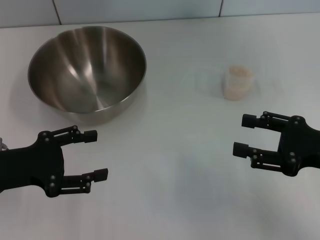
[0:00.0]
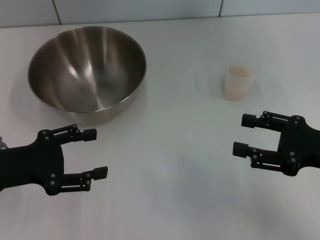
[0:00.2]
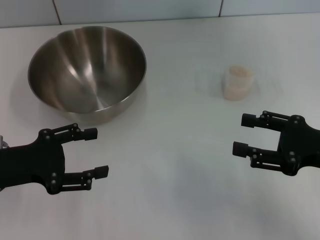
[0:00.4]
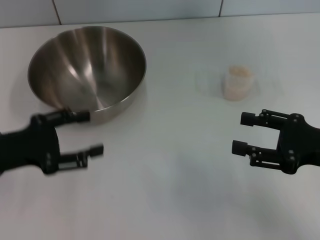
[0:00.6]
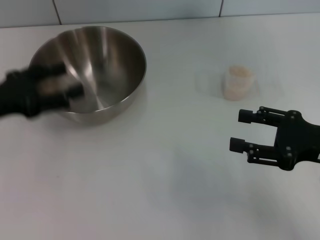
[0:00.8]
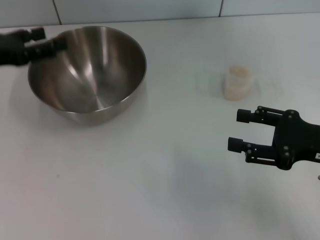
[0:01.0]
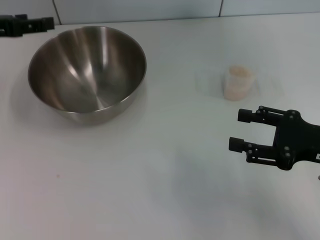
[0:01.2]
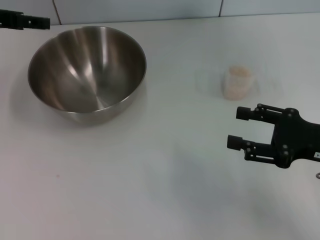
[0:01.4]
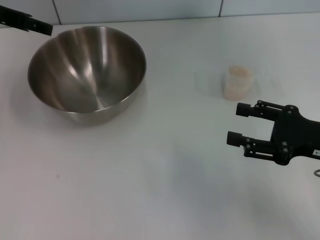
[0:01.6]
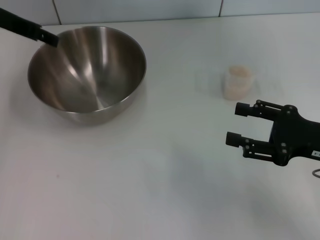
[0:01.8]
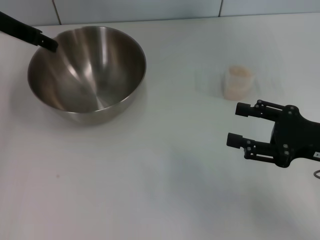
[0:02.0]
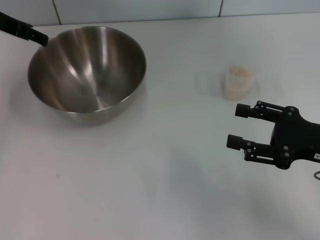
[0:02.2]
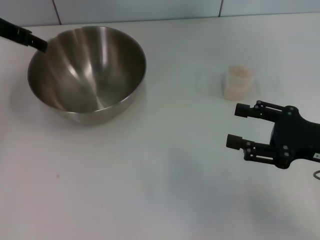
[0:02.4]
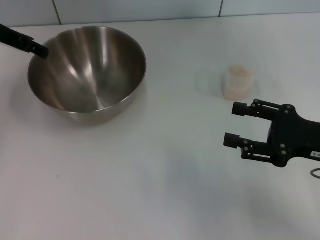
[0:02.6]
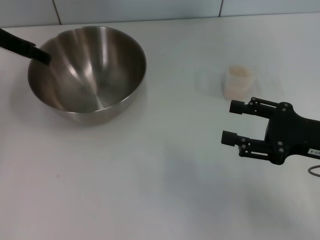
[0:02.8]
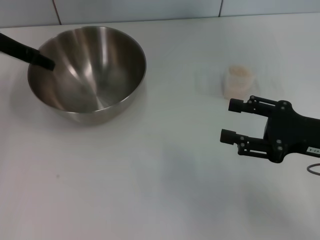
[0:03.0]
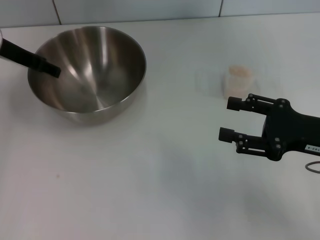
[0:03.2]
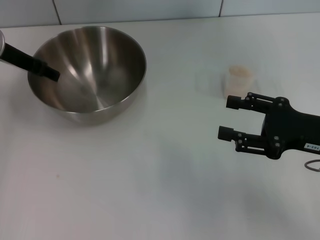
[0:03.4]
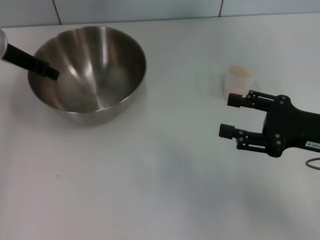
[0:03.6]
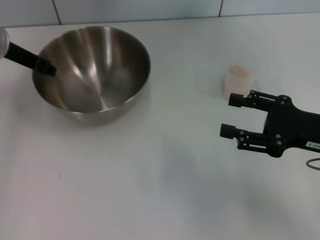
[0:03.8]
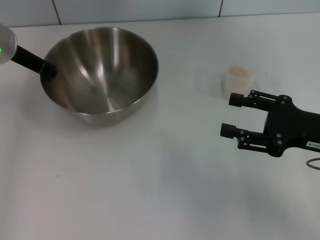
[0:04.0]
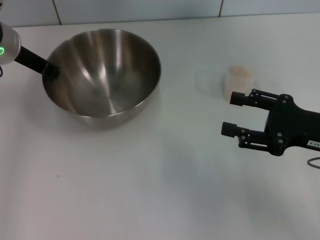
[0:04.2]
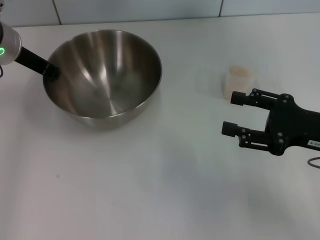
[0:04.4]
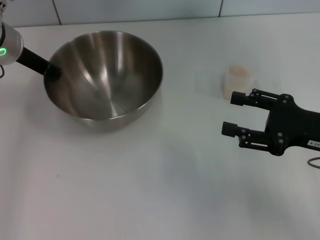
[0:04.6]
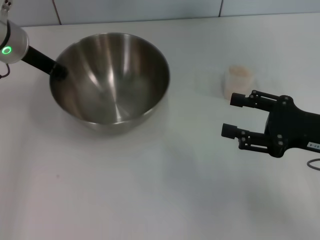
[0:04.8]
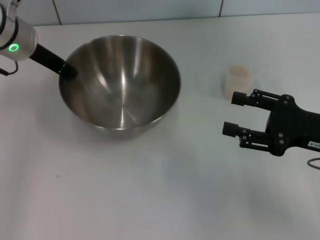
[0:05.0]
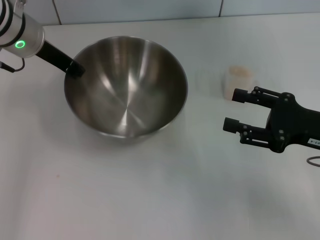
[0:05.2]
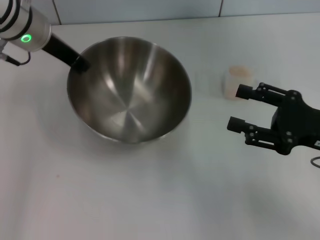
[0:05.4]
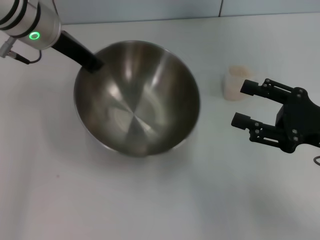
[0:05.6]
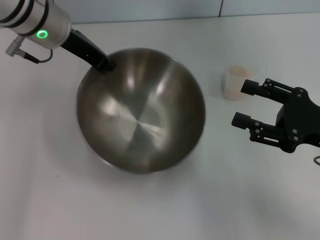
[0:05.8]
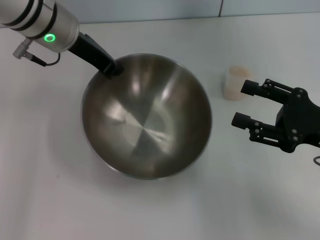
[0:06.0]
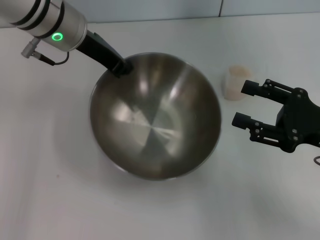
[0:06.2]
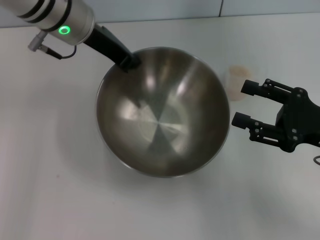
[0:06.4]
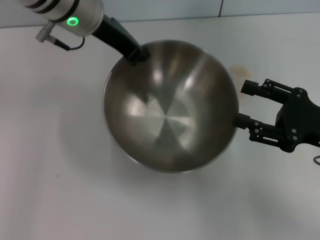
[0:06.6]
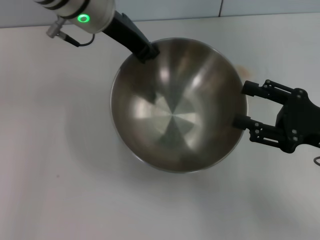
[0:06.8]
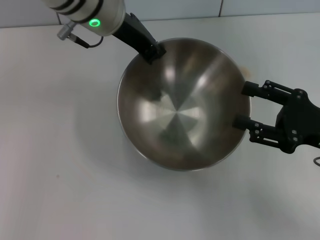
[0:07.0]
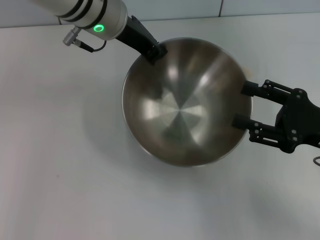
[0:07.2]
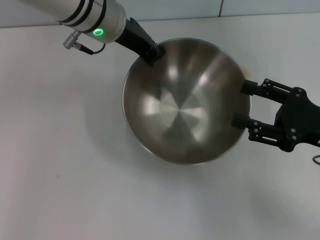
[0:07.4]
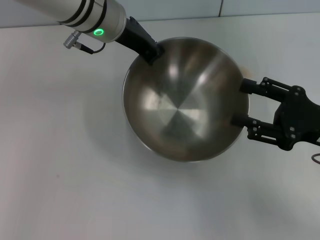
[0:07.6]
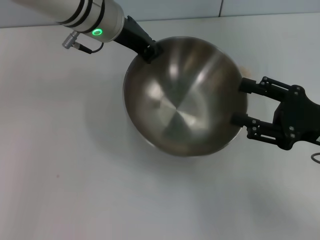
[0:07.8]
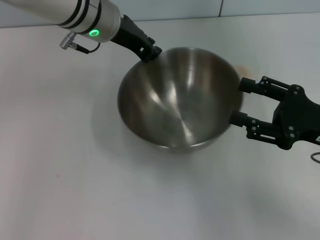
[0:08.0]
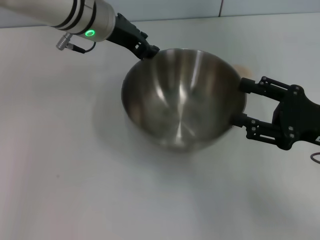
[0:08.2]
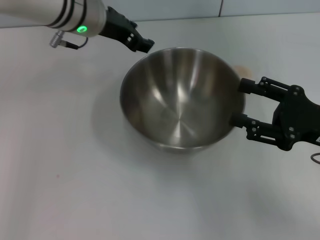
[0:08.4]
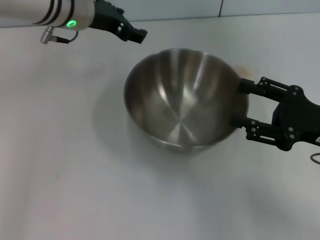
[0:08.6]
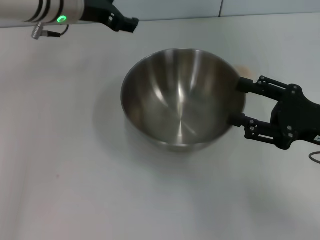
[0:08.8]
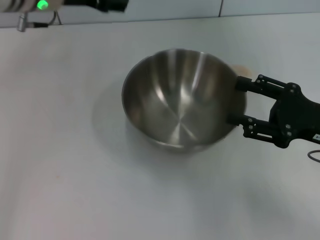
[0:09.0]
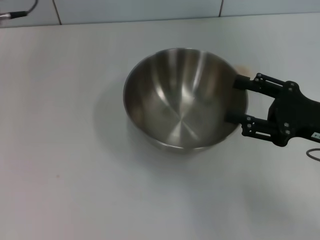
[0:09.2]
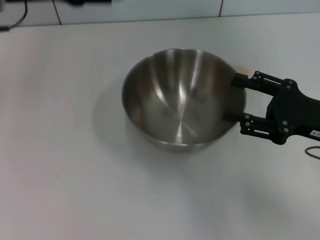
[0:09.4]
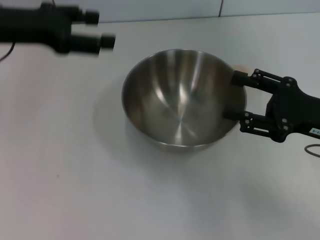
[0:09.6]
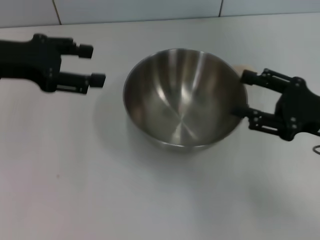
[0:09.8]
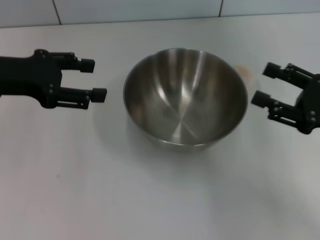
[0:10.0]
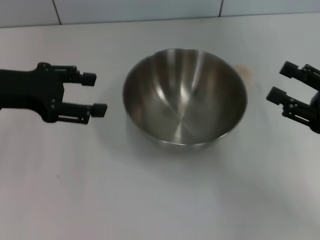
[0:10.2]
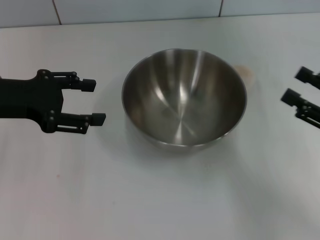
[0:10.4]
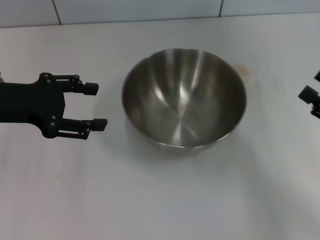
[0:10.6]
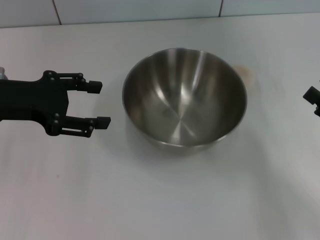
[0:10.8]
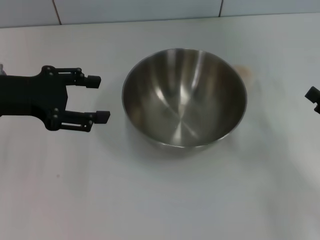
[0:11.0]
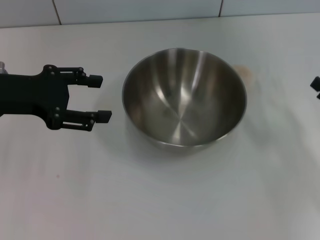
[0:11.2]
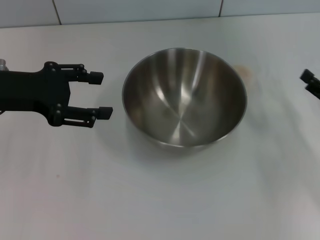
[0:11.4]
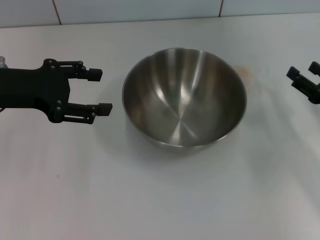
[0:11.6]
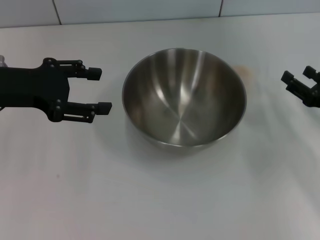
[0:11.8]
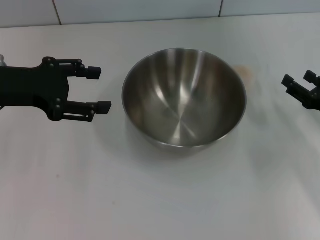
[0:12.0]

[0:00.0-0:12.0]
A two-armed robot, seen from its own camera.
Task of the whole recording: Place the bowl in the middle of the table with one hand and pour the rice from the grain cup into it with the other hand.
Step, 0:00.0 to 0:05.0: Pick up the bowl with the left gripper.
Step, 0:05.2 to 0:09.0: Place the bowl in the center of view with the left gripper.
0:00.0 to 0:01.6: The left gripper moves forward and upward, about 20 cm.
0:01.6 to 0:03.0: The left gripper goes roughly 5 cm downward.
0:03.0 to 0:04.4: The left gripper closes up.
0:04.4 to 0:06.0: The left gripper goes approximately 10 cm to the right.
0:06.0 to 0:07.6: The left gripper is displaced to the right by approximately 5 cm.
0:07.6 to 0:09.0: The left gripper travels to the left by some 10 cm, and opens.
0:09.0 to 0:10.4: The left gripper heads backward and to the left, covering some 15 cm, while the right gripper heads to the right, covering roughly 5 cm.
0:10.4 to 0:12.0: The right gripper heads downward and forward, covering about 10 cm.

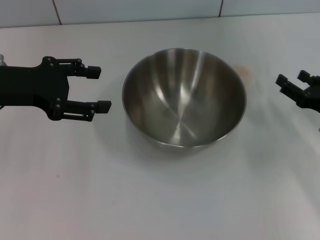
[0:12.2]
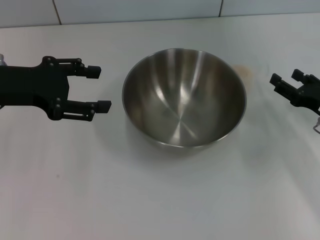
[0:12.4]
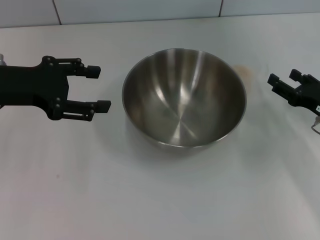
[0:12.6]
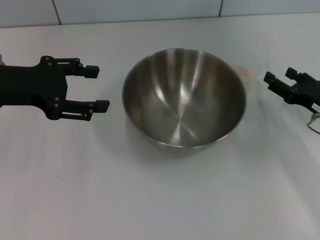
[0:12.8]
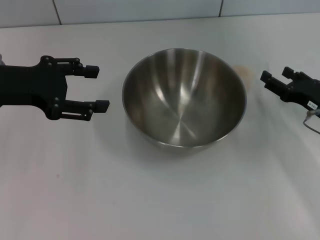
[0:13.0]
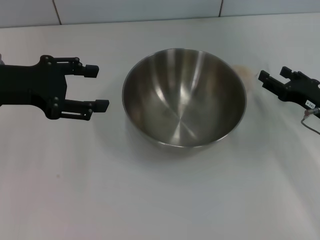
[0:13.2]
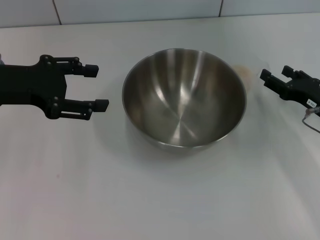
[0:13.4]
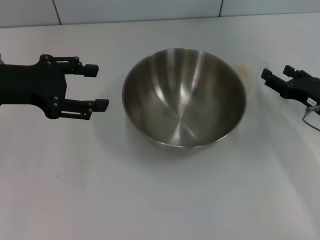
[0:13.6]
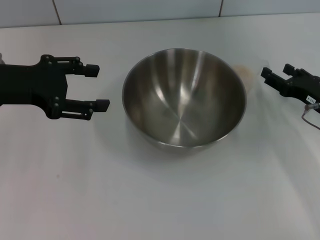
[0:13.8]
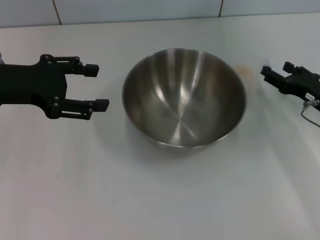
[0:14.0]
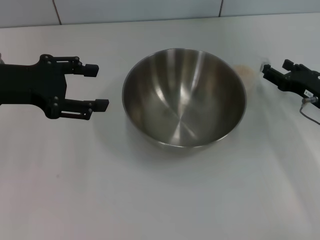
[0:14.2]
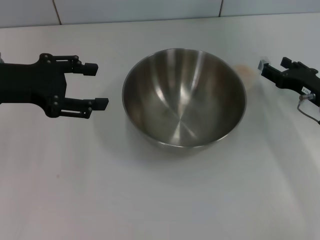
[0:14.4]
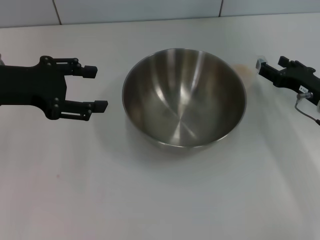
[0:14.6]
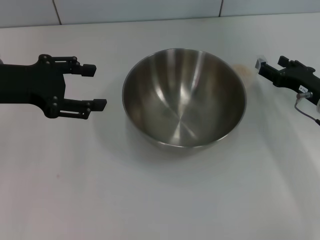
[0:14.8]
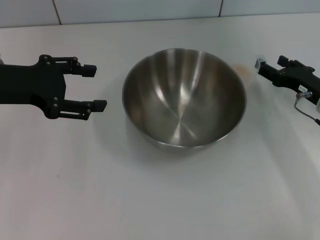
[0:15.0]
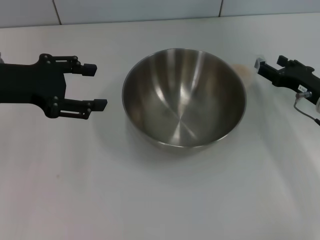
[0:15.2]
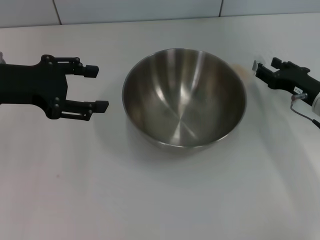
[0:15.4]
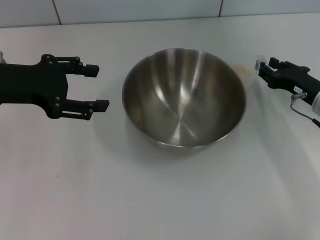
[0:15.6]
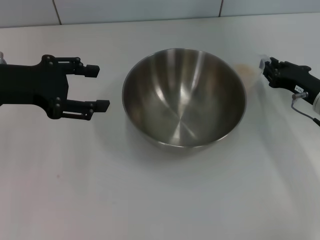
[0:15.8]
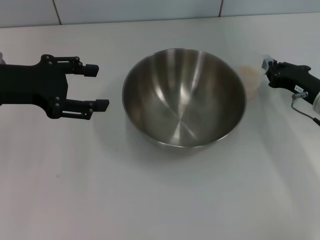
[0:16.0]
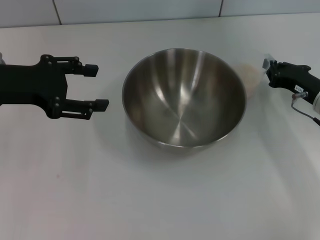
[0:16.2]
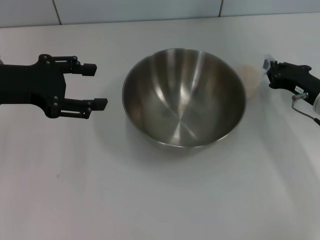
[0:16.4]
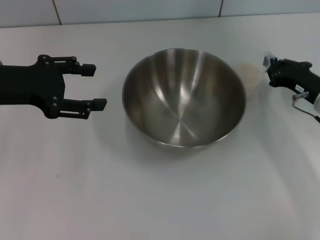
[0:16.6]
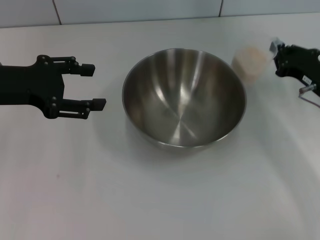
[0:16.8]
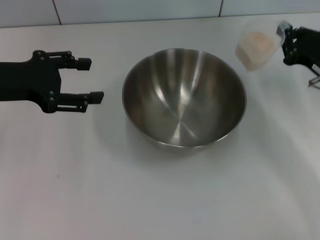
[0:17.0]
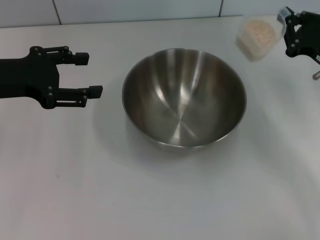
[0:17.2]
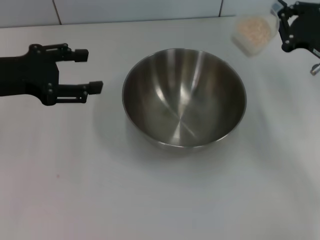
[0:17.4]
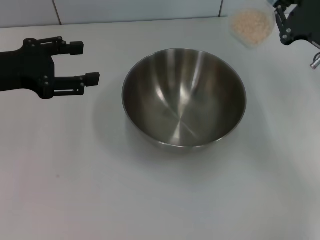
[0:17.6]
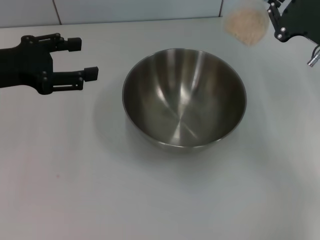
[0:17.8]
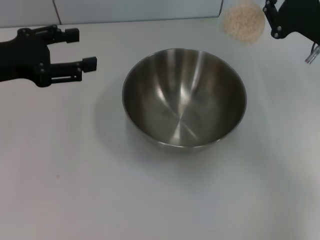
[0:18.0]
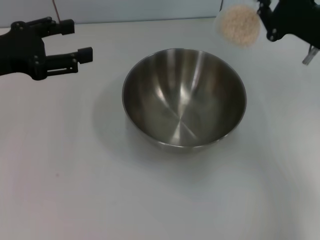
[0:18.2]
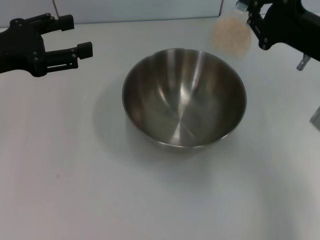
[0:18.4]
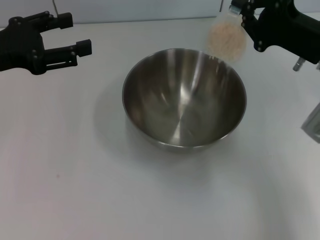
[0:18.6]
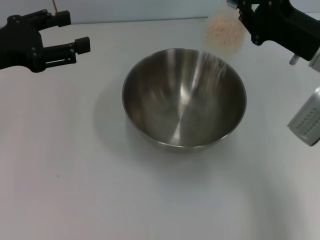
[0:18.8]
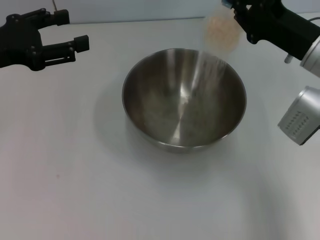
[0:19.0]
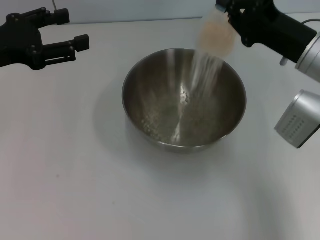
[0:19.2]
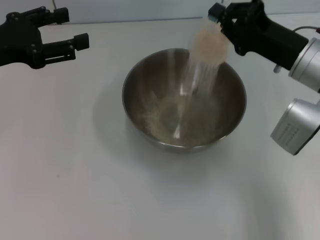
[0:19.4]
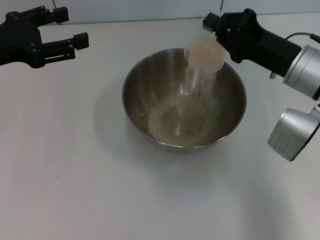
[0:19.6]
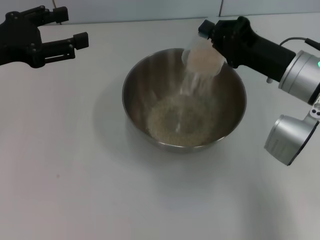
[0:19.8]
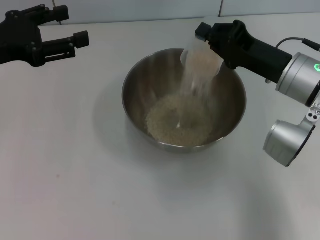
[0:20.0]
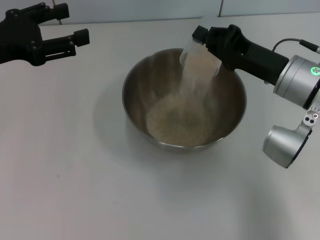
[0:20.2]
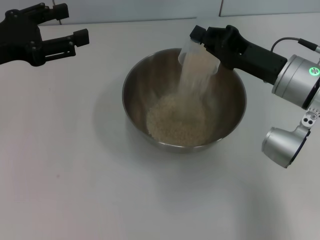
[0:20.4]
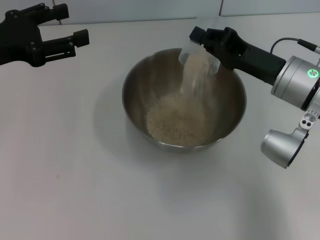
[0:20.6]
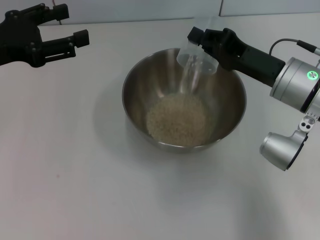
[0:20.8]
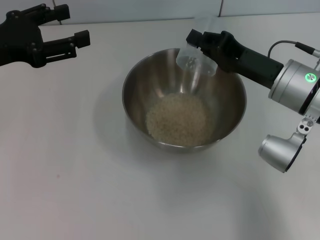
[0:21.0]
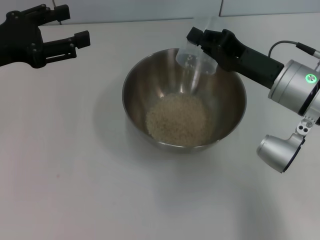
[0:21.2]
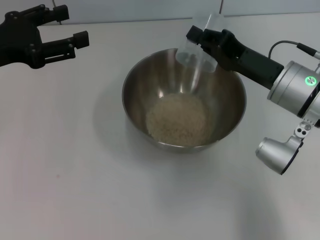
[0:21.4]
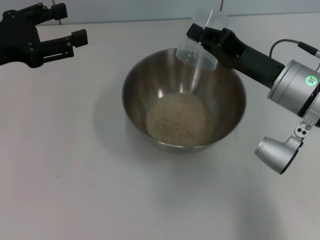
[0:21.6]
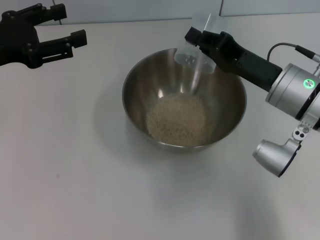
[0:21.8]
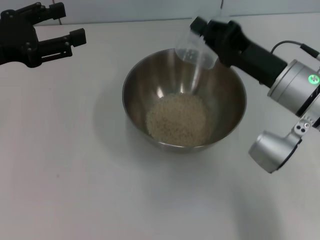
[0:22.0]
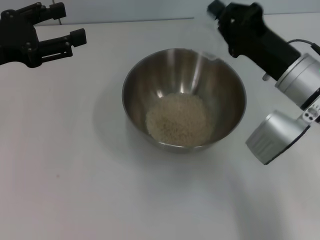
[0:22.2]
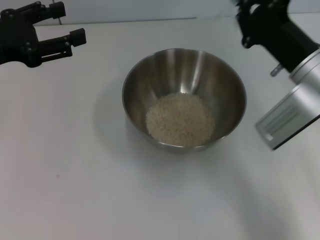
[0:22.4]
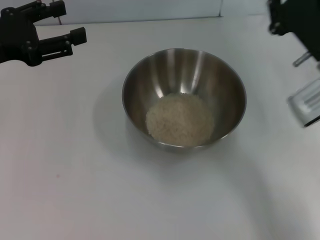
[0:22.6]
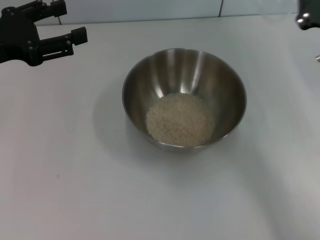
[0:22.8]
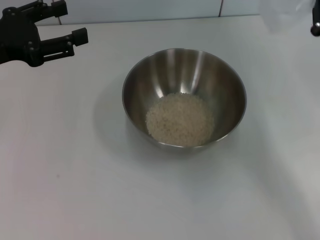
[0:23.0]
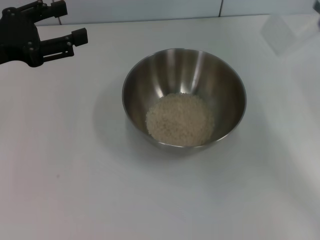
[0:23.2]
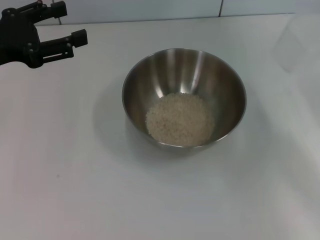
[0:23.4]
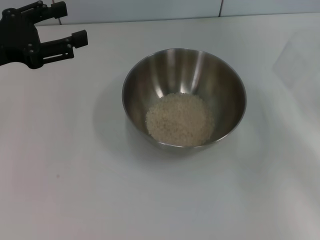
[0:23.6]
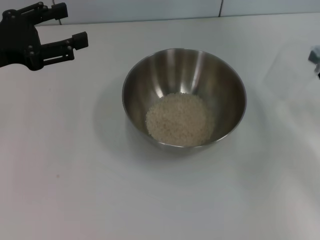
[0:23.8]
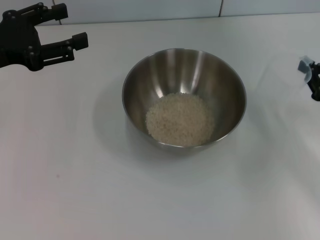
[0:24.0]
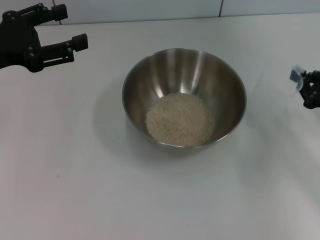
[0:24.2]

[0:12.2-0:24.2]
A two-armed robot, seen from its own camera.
Task of the whole recording: Place the bowl in the middle of the table with one hand and pour the rice from the grain cup into it with the other hand.
Step, 0:12.2 to 0:16.8: Pick up the cup with rice in it with the right gripper.
Step, 0:17.0 to 0:23.0: Pour the rice from the cup into the bowl with the right gripper.
0:12.2 to 0:15.2: The grippers move only a little.
0:15.2 to 0:16.6: The right gripper closes up.
0:16.6 to 0:18.2: The right gripper is displaced upward by about 10 cm.
0:18.2 to 0:19.8: The right gripper is displaced to the left by roughly 5 cm.
0:19.8 to 0:21.2: The grippers stay close to where they were, moving slightly.
0:21.2 to 0:22.6: The right gripper travels to the right by approximately 5 cm.
0:22.6 to 0:24.2: The right gripper goes roughly 10 cm to the right and downward.
